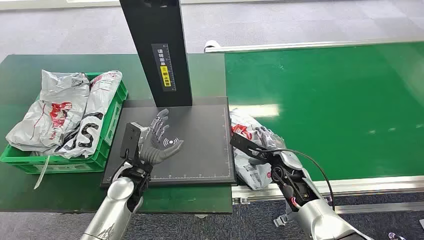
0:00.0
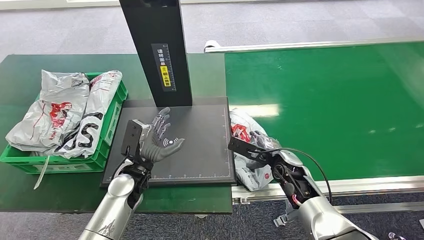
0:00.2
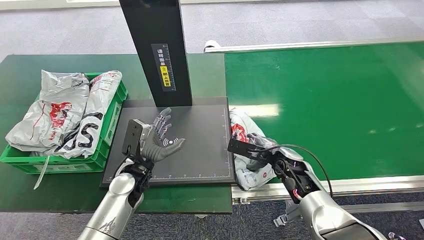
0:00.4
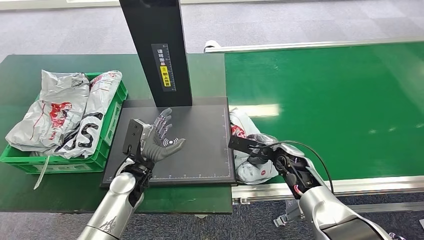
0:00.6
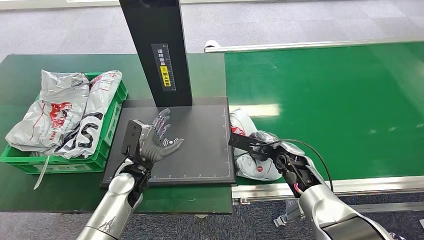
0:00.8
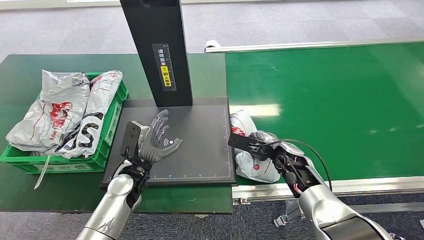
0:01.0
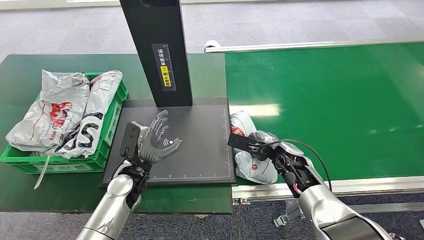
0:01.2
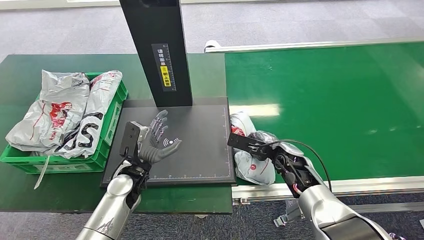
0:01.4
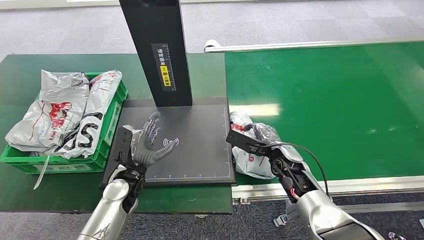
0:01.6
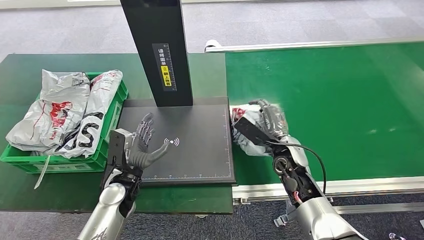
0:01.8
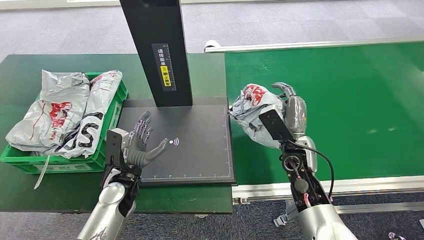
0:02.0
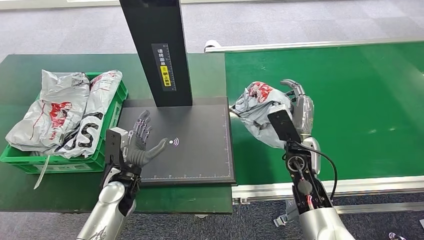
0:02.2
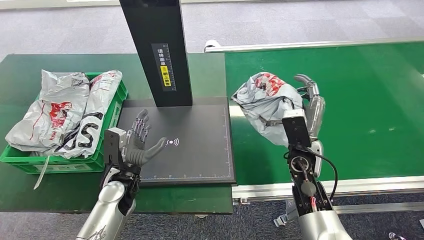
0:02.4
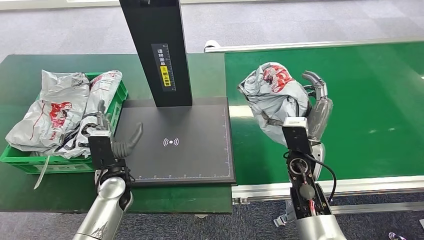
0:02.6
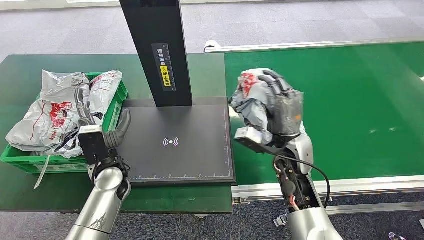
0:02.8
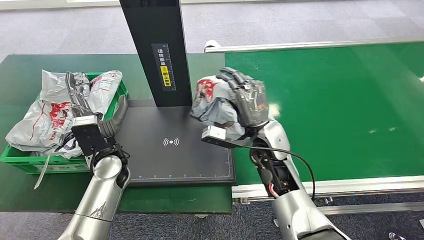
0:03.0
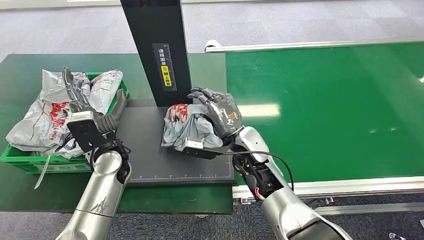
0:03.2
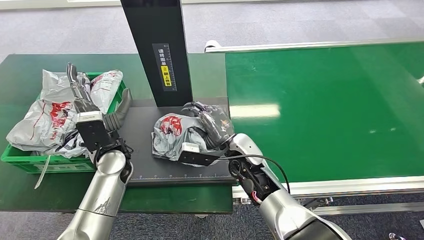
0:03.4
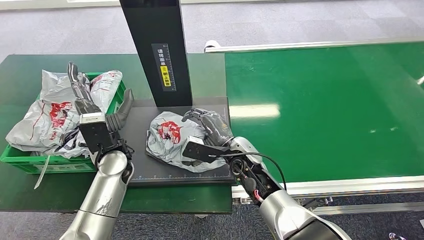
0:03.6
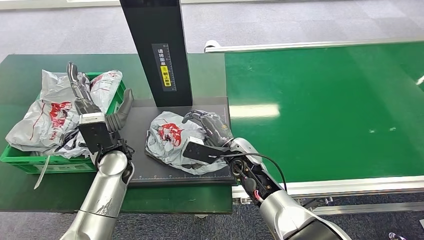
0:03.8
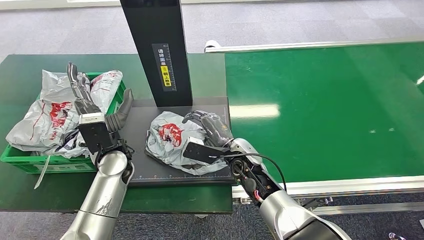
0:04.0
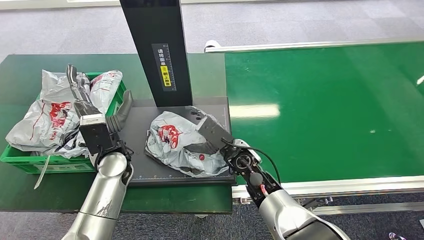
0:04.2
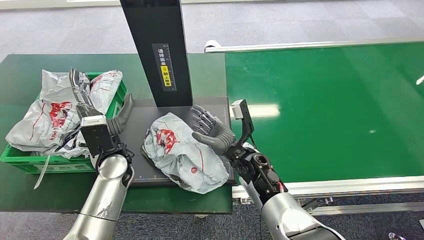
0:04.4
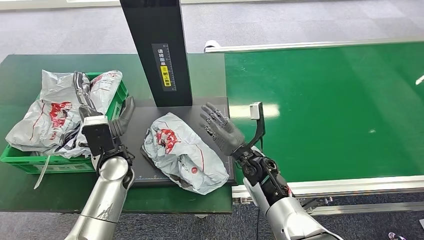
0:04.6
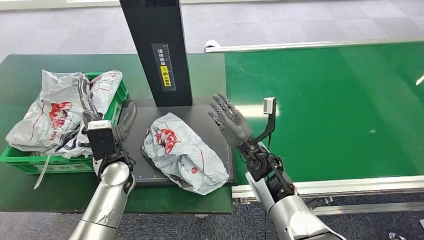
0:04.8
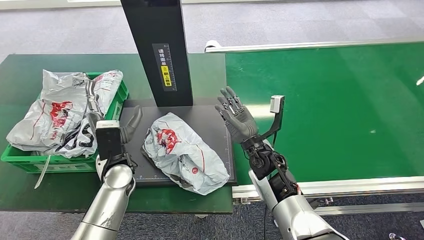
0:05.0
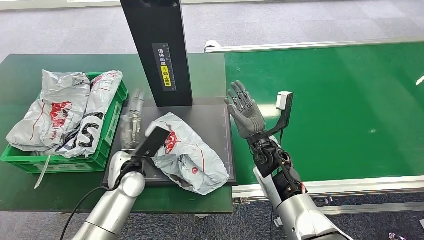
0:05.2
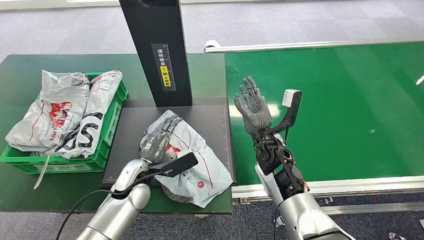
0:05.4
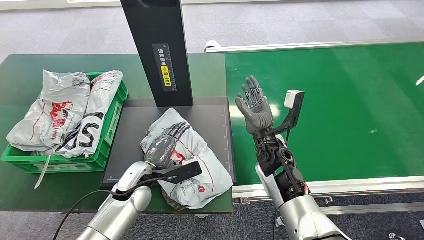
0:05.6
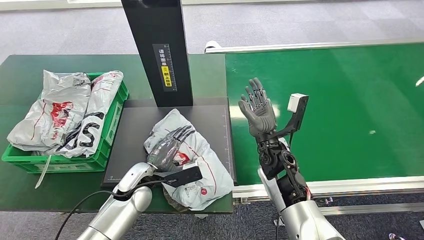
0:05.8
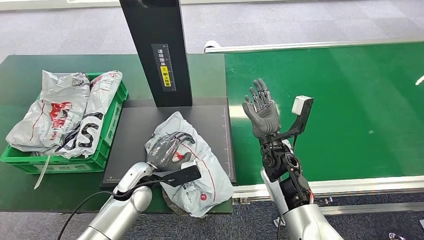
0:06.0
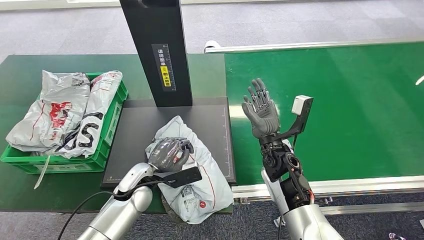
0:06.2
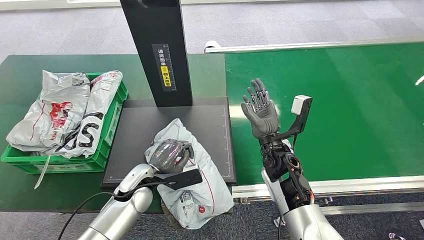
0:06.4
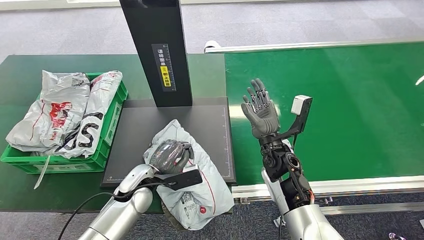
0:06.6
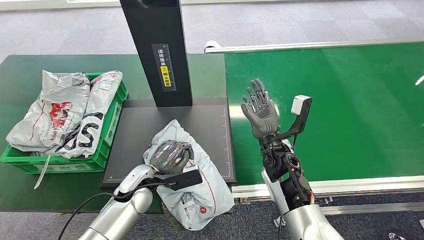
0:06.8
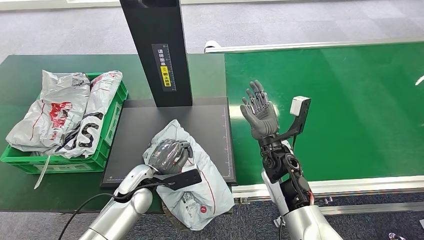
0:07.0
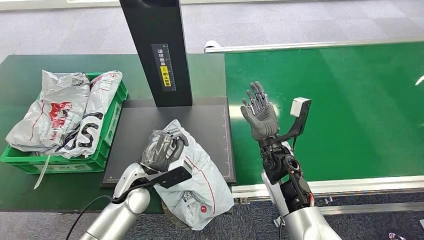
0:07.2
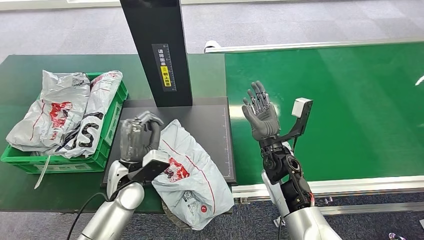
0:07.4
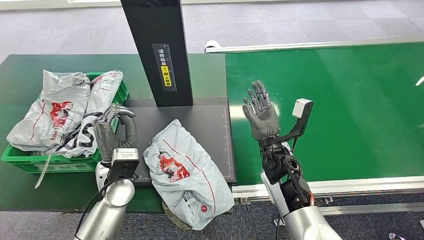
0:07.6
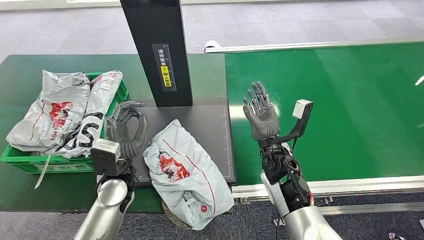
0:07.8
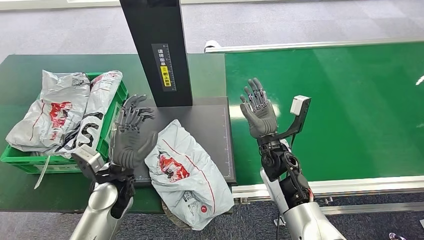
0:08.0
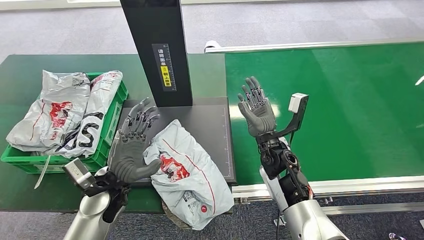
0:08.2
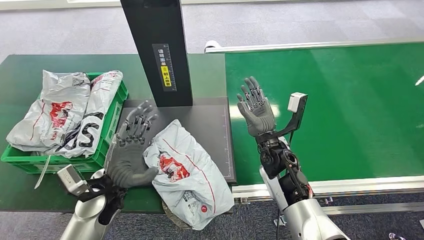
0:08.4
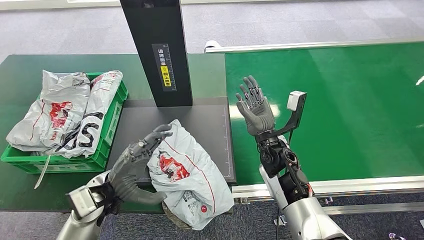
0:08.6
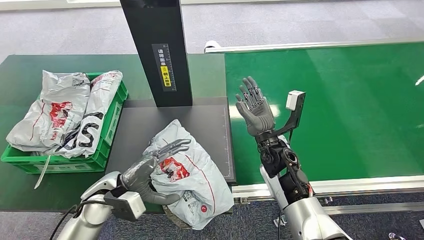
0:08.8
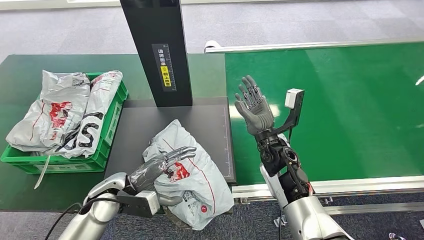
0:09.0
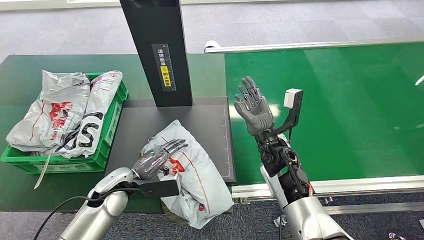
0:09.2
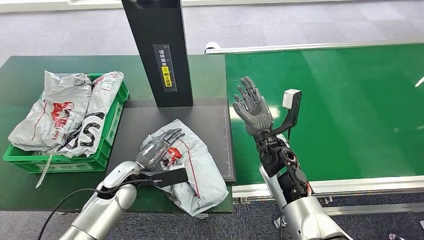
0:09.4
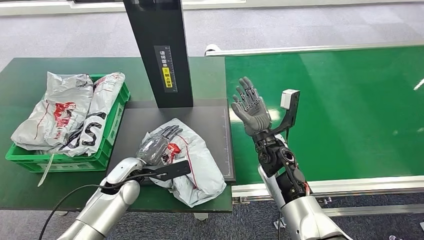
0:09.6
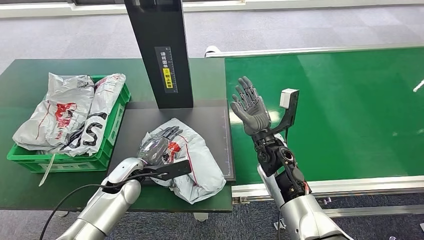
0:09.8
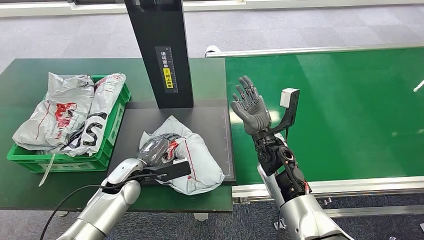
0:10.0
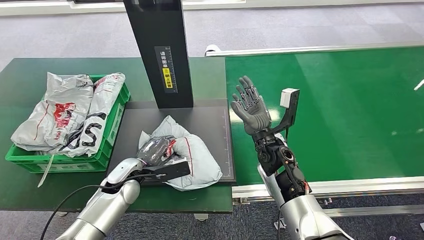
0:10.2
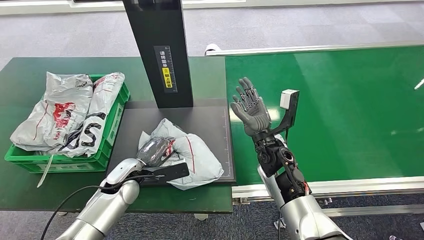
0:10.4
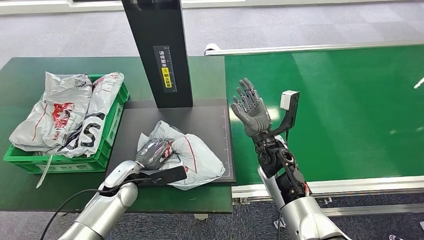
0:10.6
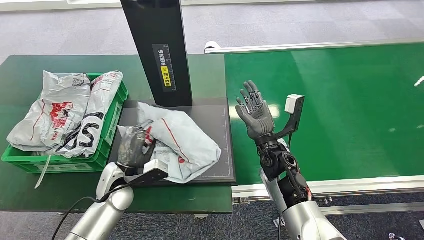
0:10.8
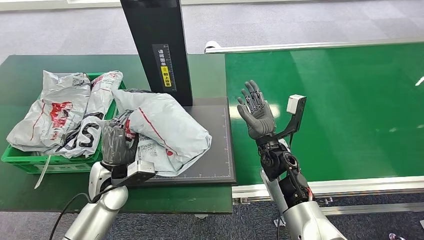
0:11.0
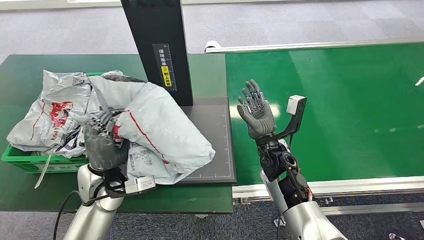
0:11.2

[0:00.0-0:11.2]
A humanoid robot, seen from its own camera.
Step, 0:00.0 to 0:02.6: Pick up the package from the conveyor belt.
Step, 0:02.8 to 0:05.2: Place the package onto the inbound machine.
0:03.2 to 0:04.8: The right hand changes place by roughly 5 cm.
0:04.8 to 0:06.4: The left hand travels downward by roughly 5 cm.
0:06.4 to 0:08.0: The left hand heads upward, covering some 5 cm.

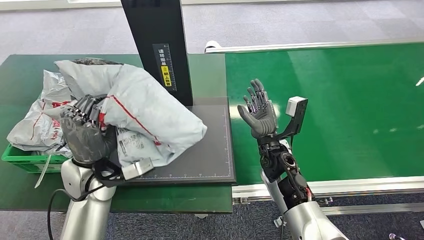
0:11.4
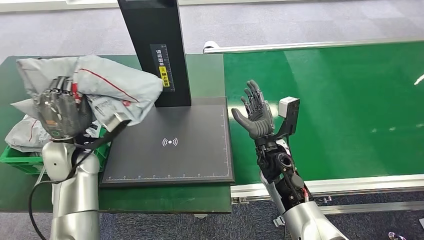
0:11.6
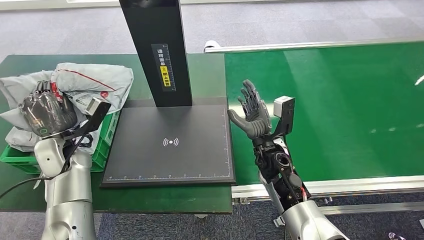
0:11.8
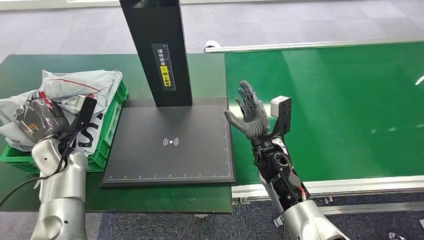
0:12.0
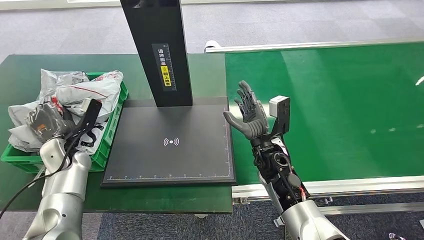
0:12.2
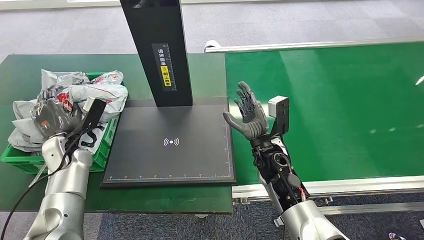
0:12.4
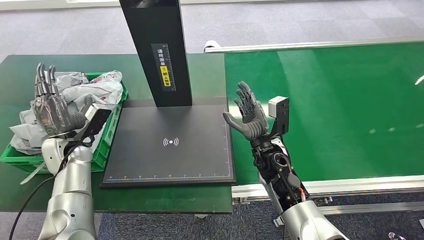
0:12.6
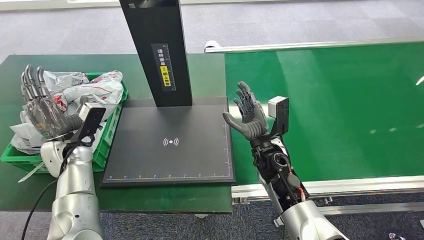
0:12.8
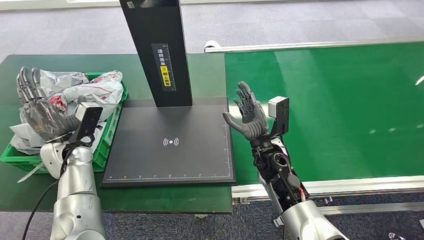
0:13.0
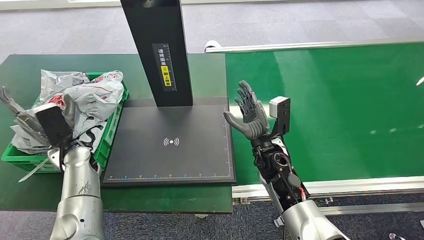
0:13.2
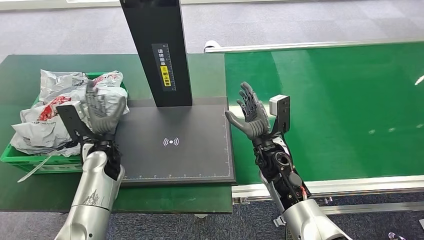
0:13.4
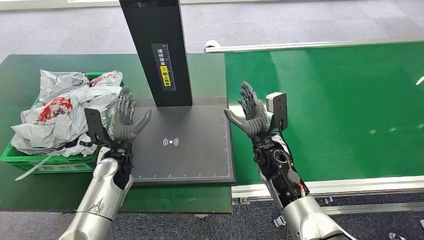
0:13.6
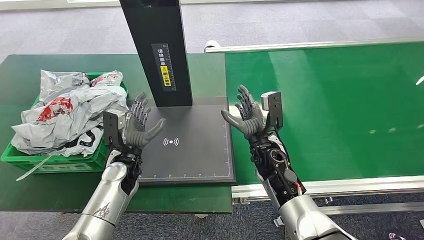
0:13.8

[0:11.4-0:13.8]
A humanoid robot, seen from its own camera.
Step, 0:11.8 to 0:13.8: Place the package into the parcel locker.
0:12.6 to 0:13.8: The left hand travels to the right by roughly 15 cm.

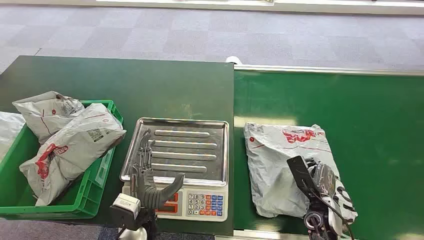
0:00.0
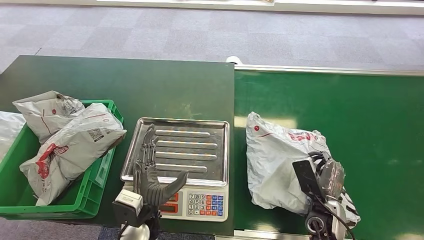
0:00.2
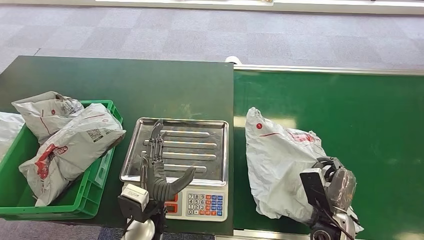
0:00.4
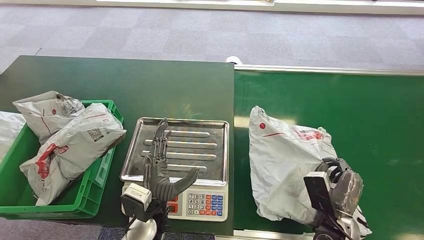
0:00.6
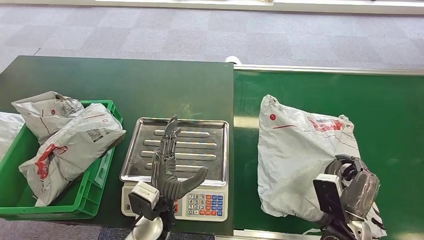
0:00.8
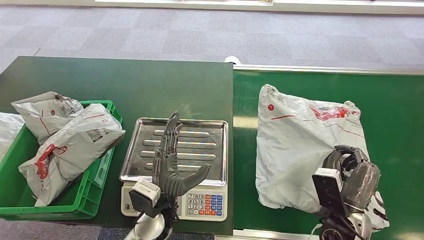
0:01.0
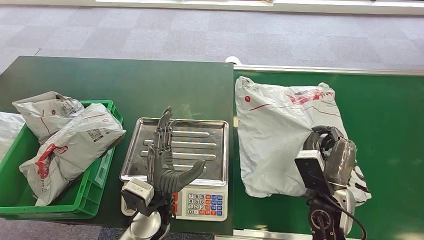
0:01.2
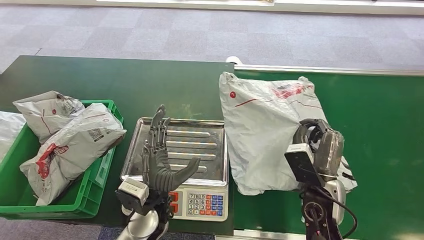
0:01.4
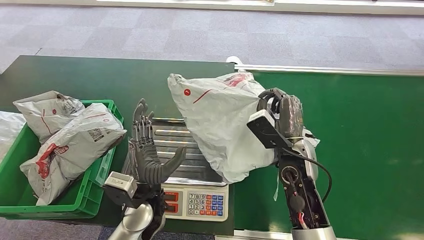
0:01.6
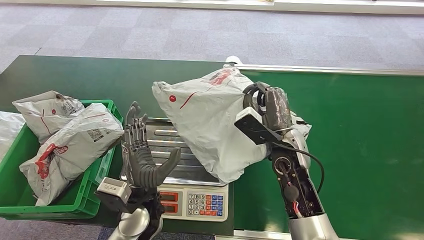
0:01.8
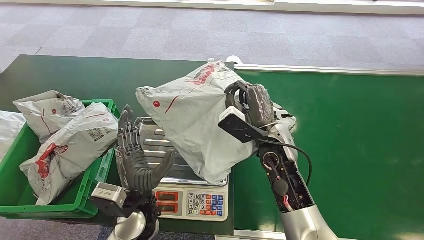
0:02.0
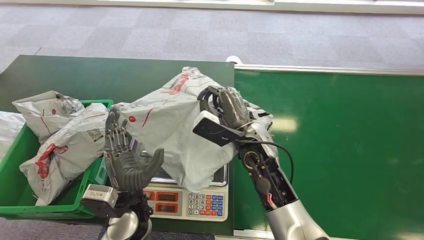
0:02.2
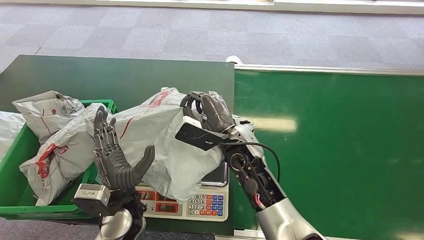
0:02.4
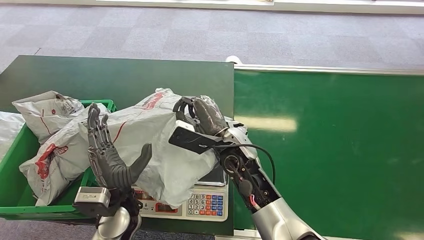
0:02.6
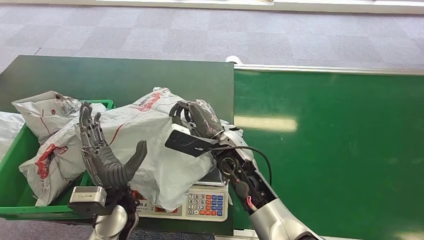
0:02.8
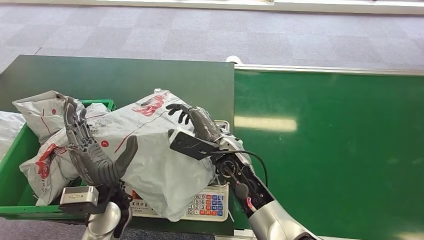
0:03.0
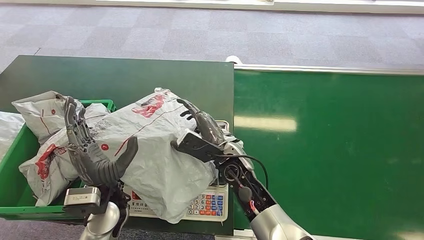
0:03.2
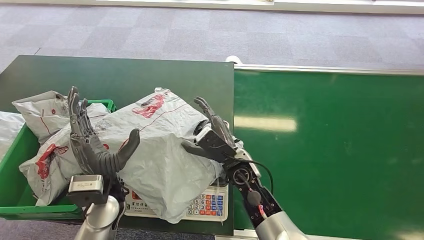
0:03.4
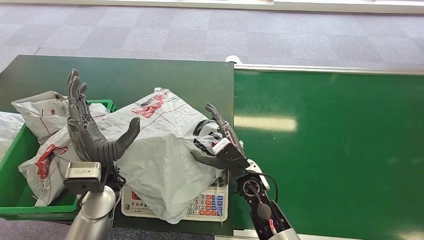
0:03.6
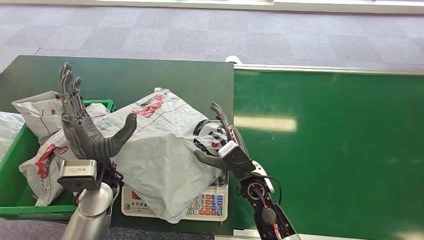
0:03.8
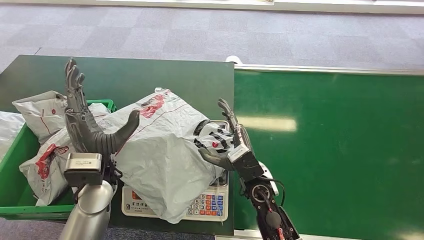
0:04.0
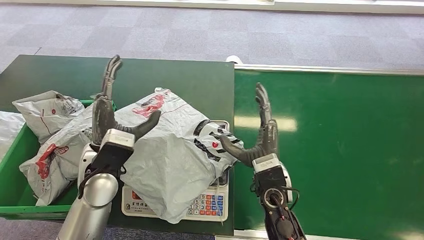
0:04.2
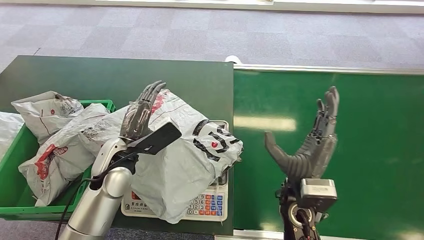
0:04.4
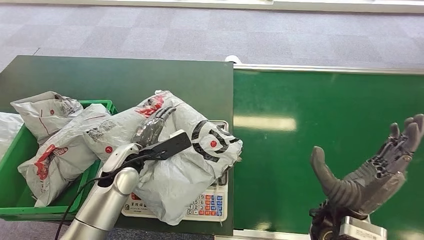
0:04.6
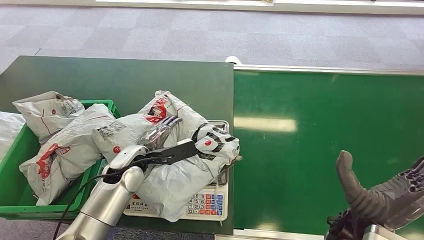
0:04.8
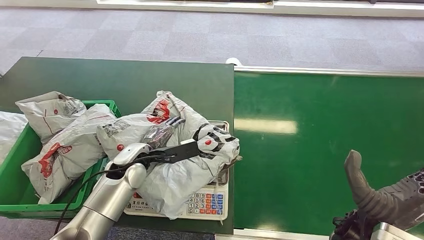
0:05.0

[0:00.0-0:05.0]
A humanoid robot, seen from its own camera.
Step, 0:00.0 to 0:01.0: Pick up the package from the conveyor belt.
Step, 0:02.2 to 0:03.2: Place the package onto the inbound machine.
